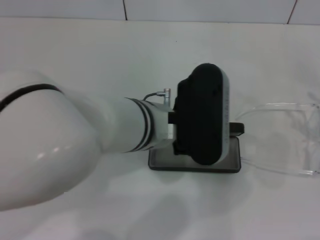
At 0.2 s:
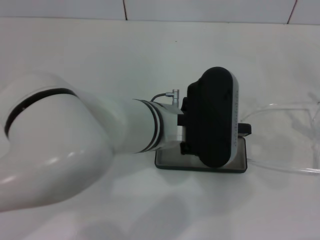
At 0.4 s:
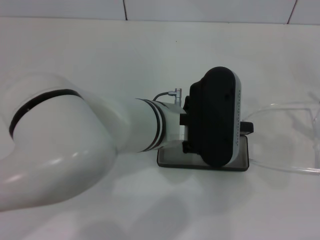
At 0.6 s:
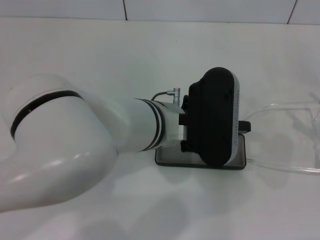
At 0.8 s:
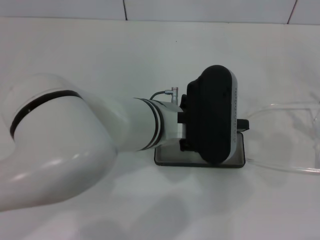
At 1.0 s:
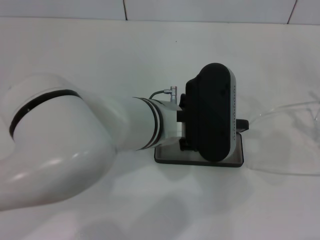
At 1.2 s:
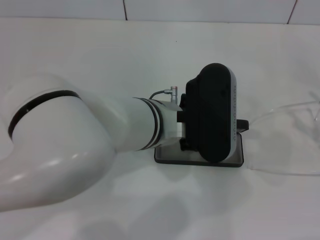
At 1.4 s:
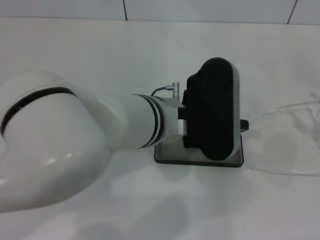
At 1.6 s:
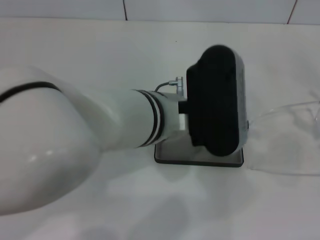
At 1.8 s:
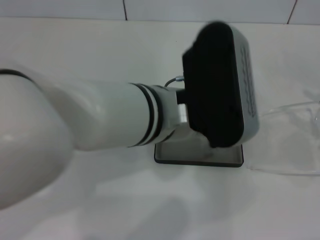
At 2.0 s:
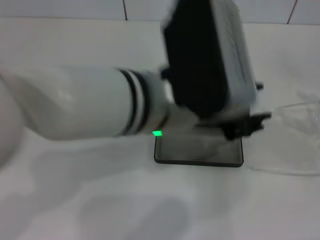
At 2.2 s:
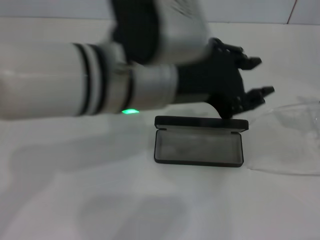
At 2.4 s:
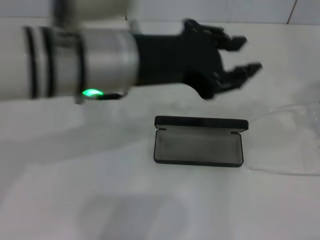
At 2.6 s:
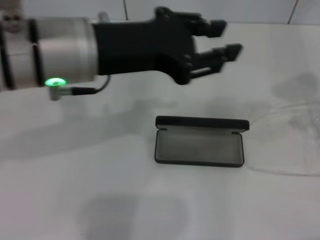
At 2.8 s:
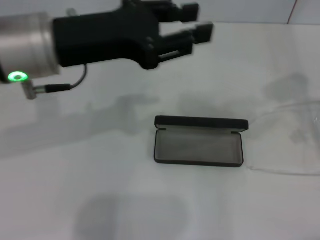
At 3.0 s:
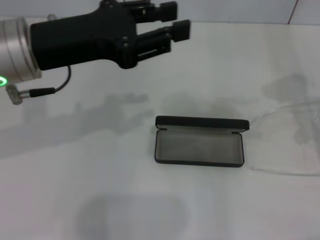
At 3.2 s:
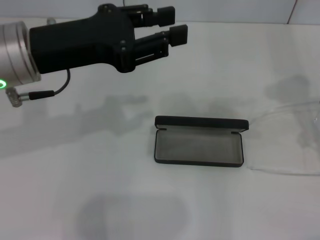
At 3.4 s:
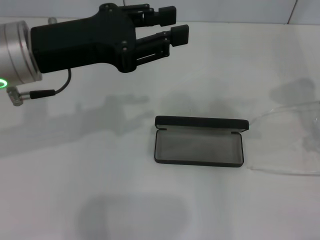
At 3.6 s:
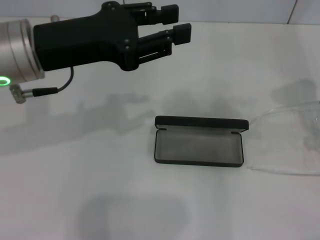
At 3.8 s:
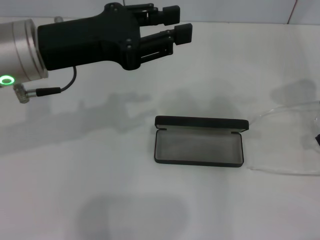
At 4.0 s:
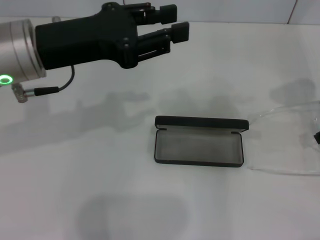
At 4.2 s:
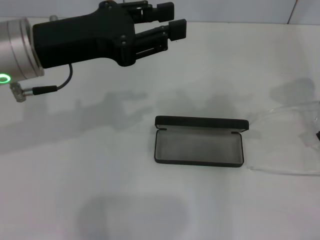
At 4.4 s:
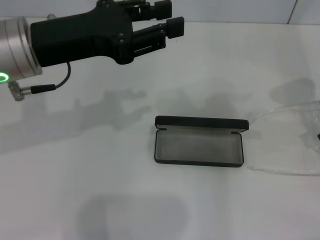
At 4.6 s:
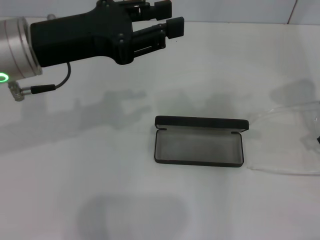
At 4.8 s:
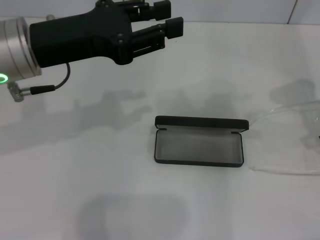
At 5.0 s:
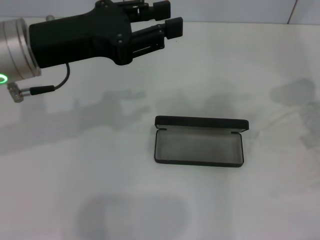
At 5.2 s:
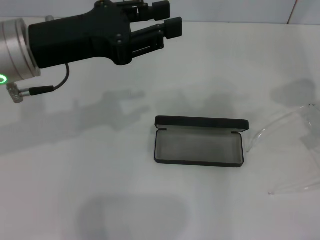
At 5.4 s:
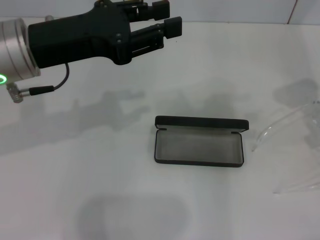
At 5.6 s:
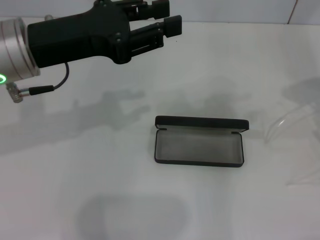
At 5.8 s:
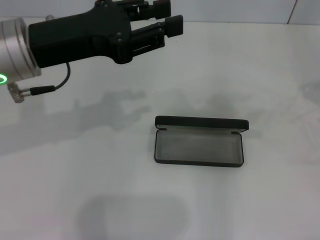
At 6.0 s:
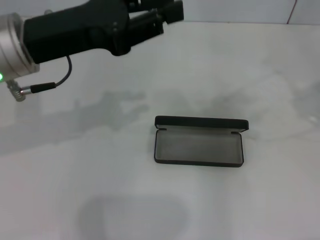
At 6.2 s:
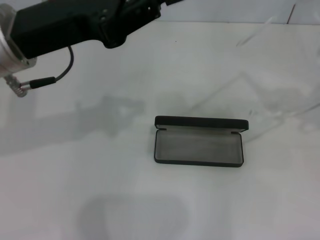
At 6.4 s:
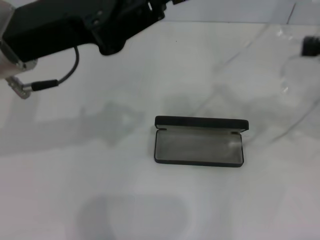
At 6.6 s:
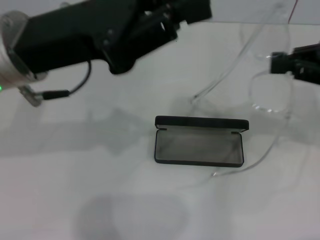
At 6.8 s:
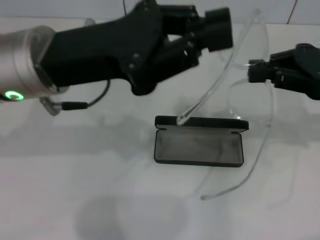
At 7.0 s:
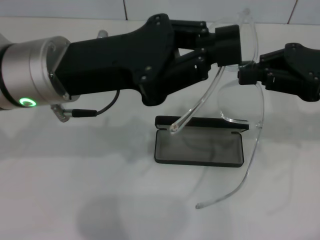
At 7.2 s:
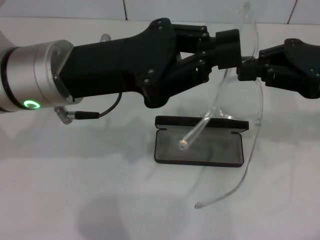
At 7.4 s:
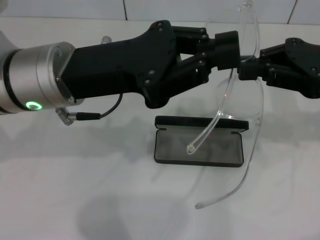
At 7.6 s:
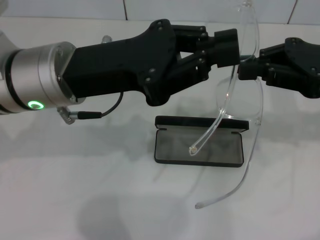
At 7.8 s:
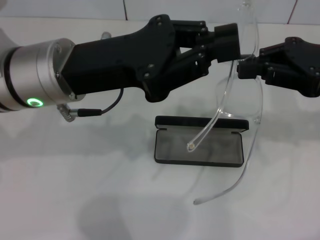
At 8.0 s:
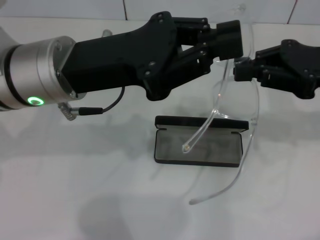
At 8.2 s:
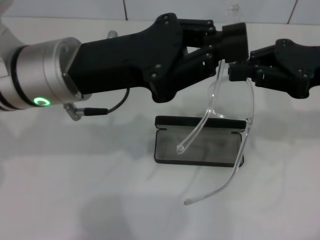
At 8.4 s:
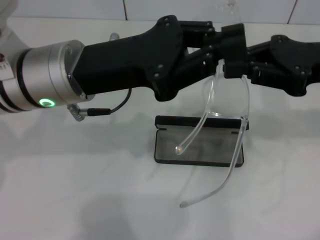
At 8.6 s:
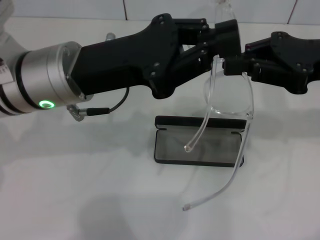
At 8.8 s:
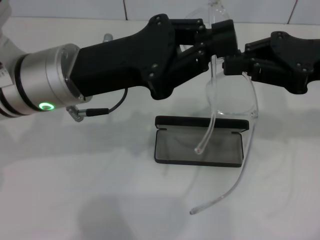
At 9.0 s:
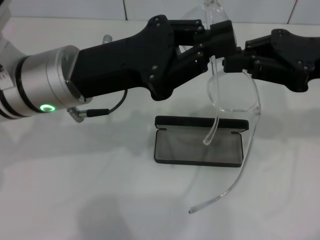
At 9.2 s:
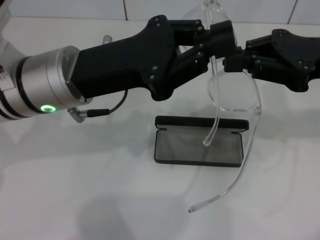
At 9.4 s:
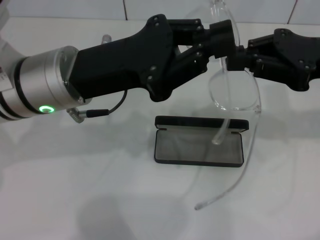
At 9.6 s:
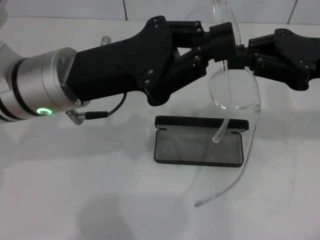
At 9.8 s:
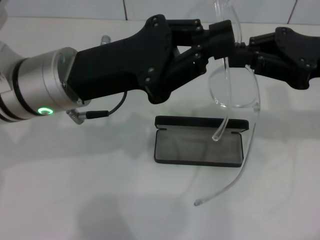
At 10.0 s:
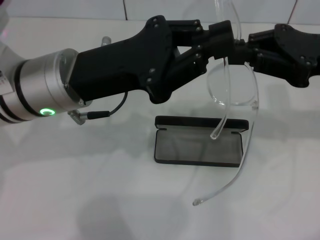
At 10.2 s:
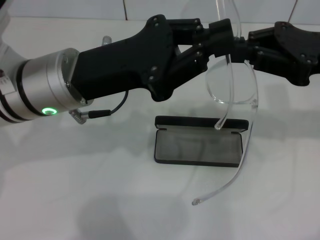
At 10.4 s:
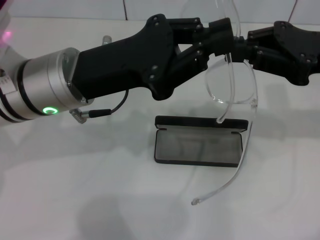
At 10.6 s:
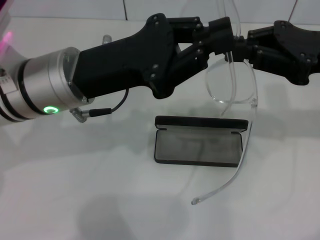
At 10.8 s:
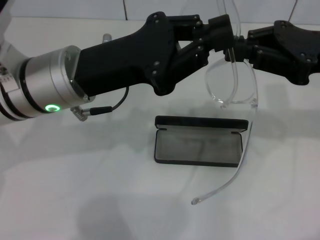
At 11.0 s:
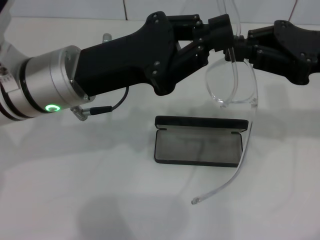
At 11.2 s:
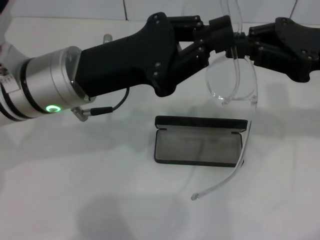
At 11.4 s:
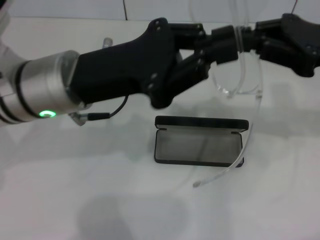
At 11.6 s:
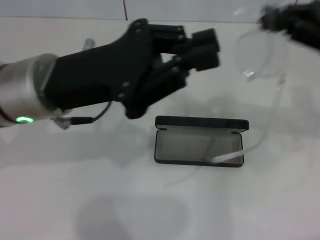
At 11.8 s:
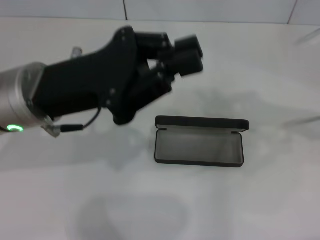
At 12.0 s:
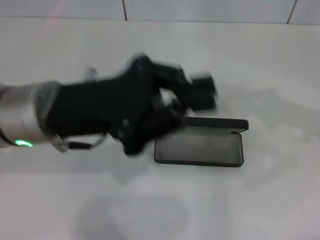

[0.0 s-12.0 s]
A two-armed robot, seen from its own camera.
Step, 0.0 to 1.8 s: Place the glasses case in the center of the table with your left hand.
Step, 2.0 to 5.0 s: Grab the eyeglass frame with your right hand.
0.0 to 1.6 s: There are only small adjustments of the grippers.
1.6 to 3.0 s: The left gripper shifts some 15 cm to the left. The right gripper travels upward, to the left and forward by roughly 20 cm.
3.0 to 4.4 s: The right gripper is displaced downward by about 5 cm, and closes up.
4.4 to 6.0 s: The right gripper shifts some 10 cm upward and to the right, and closes.
6.0 to 7.6 s: The right gripper travels to the left and downward by some 10 cm. The left gripper ends up about 5 cm from where it was.
7.6 to 9.0 s: There are only small adjustments of the grippers.
9.0 to 10.4 s: Both grippers stay put.
10.4 to 12.0 s: The right gripper shifts about 10 cm to the right.

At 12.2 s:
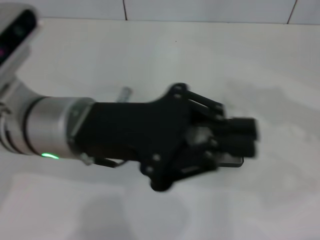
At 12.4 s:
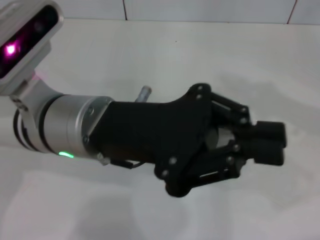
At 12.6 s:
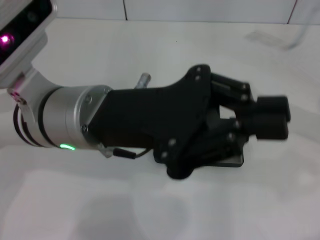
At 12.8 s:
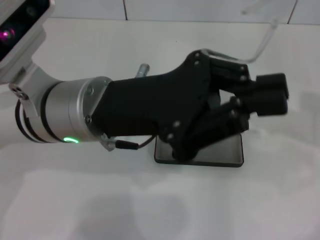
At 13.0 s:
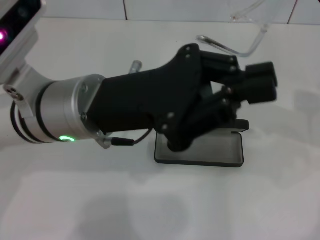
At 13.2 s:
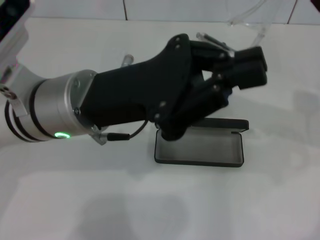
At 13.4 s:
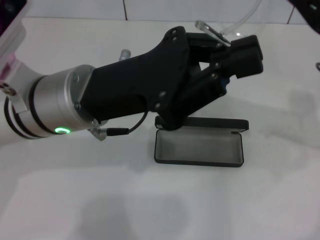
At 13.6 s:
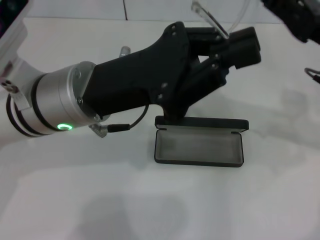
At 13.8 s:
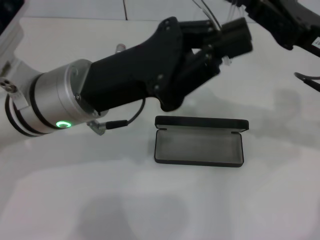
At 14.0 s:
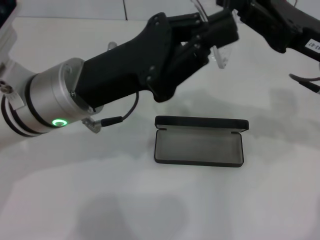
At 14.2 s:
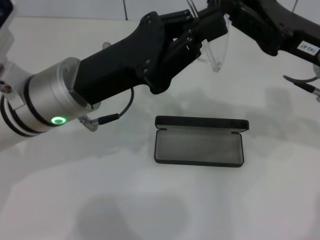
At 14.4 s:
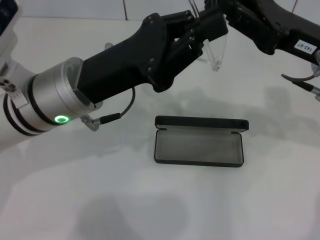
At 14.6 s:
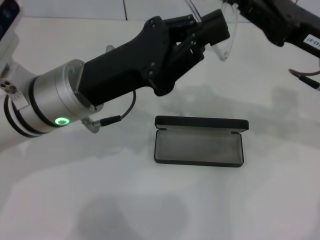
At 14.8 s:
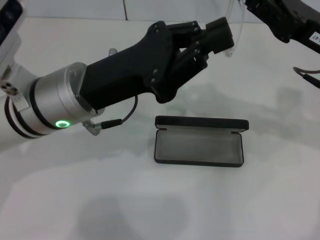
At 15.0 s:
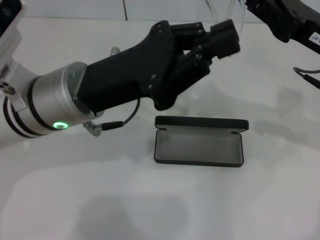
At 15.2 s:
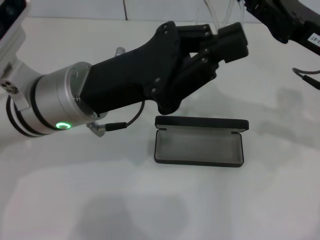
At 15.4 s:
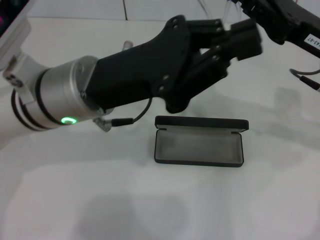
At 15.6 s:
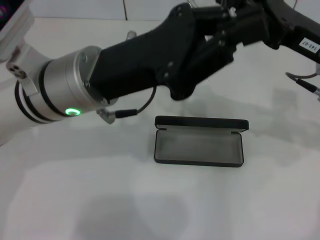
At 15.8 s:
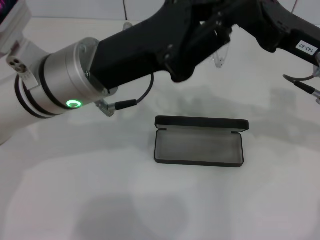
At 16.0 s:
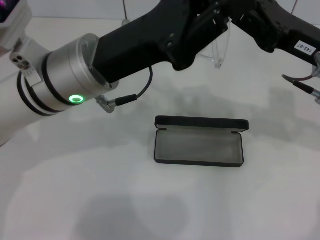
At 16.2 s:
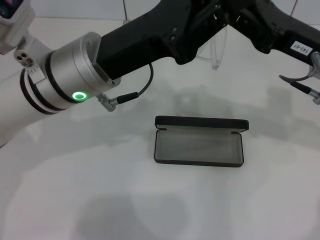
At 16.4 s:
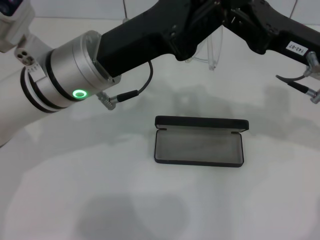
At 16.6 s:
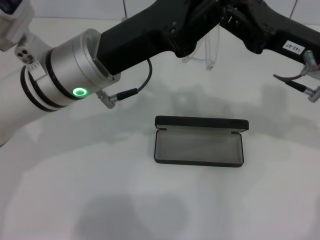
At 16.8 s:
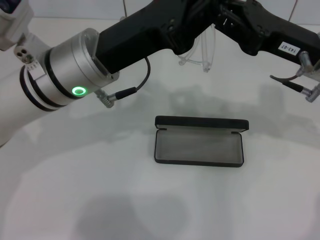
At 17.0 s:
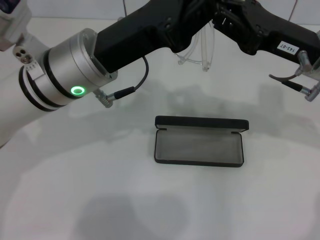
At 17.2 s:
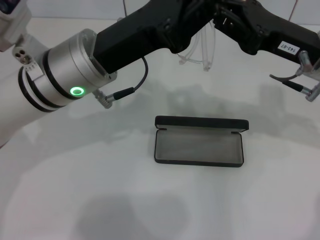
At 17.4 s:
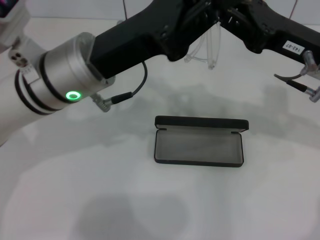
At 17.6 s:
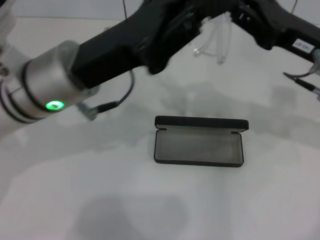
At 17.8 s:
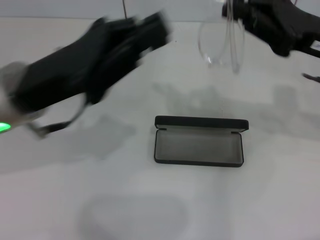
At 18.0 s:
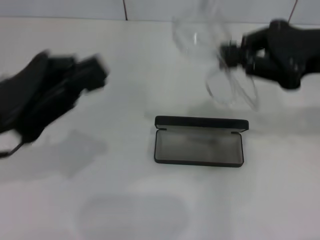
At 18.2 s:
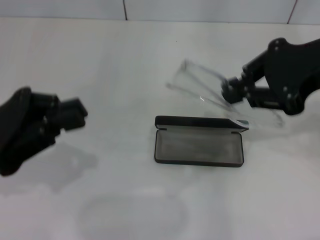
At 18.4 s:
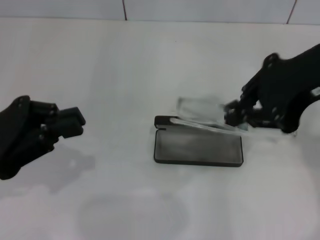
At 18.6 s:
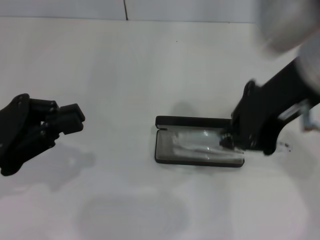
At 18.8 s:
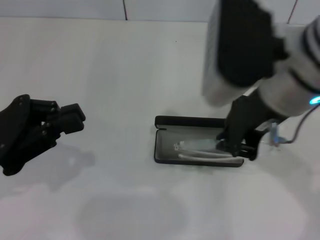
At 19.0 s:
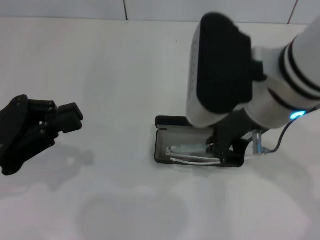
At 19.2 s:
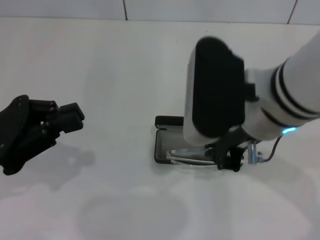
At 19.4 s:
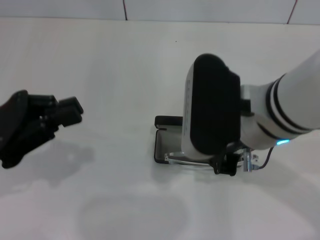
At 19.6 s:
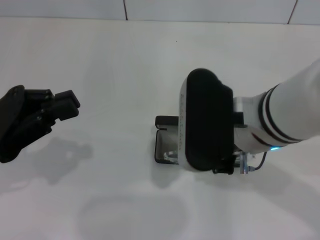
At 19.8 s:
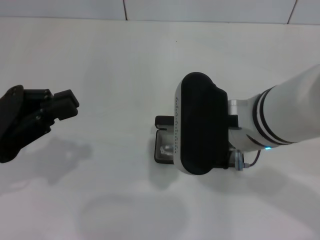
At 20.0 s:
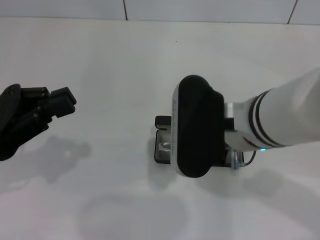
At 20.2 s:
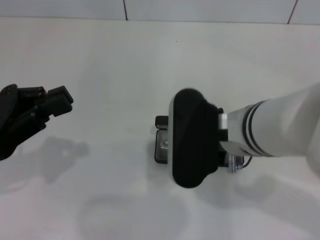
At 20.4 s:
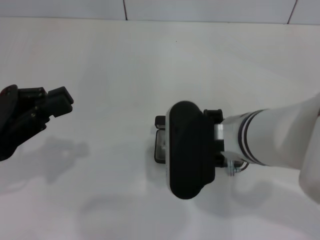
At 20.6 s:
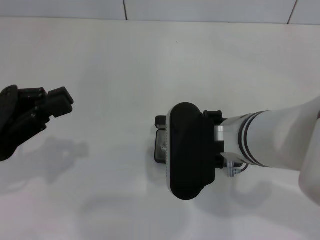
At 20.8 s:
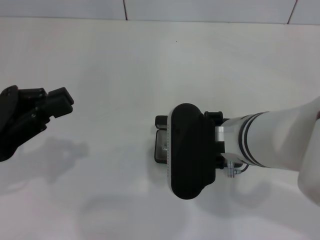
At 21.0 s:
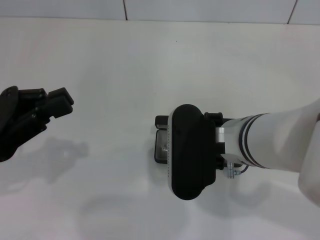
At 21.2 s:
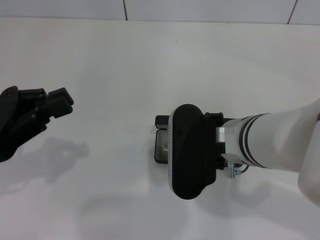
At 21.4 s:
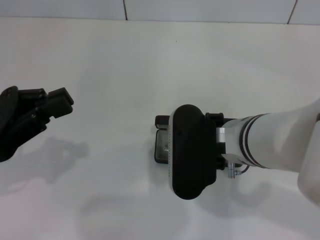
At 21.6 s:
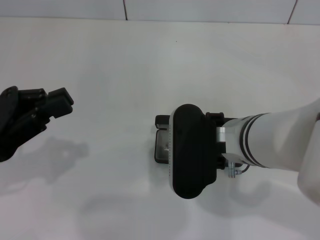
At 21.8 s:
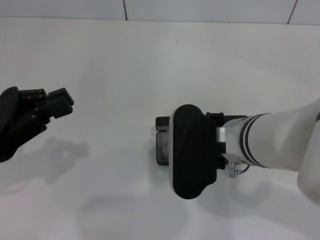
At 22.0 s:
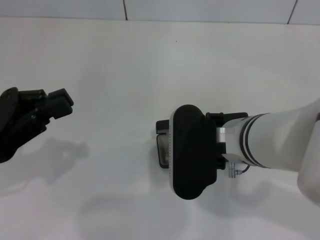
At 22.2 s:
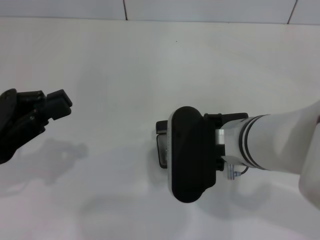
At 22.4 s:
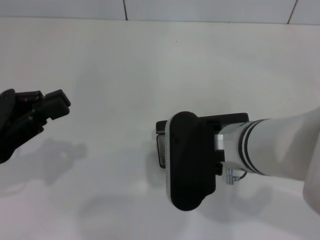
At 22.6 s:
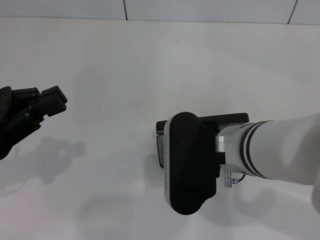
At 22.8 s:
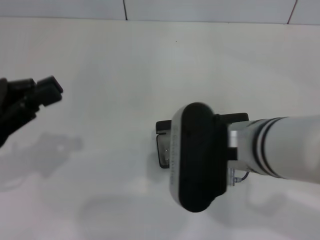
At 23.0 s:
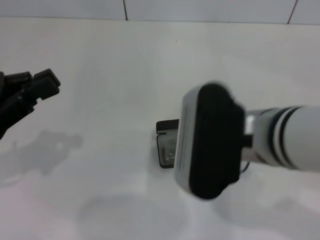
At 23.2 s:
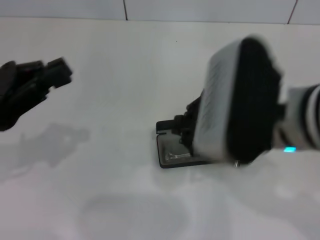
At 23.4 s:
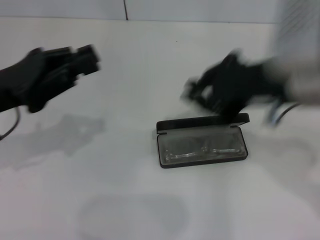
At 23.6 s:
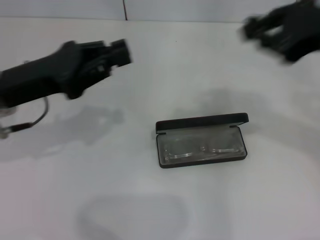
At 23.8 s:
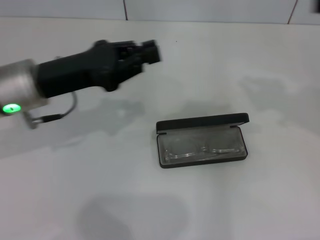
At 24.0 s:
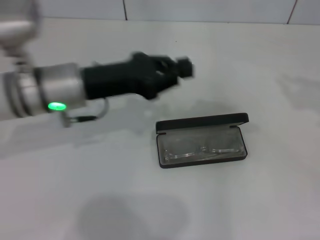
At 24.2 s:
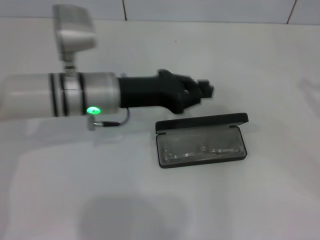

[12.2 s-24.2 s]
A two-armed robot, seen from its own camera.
Step, 12.2 to 17.4 s: Fold the frame with your left hand.
Step, 17.6 to 22.6 s: Put the glasses into the case with your right hand.
12.2 to 13.8 s: The right gripper heads to the left, covering roughly 10 cm.
13.8 to 15.2 s: The grippers make only small movements.
16.6 to 18.2 s: The left gripper is displaced to the left and backward by approximately 20 cm. The right gripper travels upward by roughly 10 cm.
18.2 to 19.8 s: The right gripper is displaced to the left and downward by some 15 cm.
19.8 to 22.6 s: The grippers move only a little.
22.6 to 24.2 s: The left gripper heads to the right and forward, covering roughly 20 cm, while the right gripper shifts roughly 35 cm to the right.
